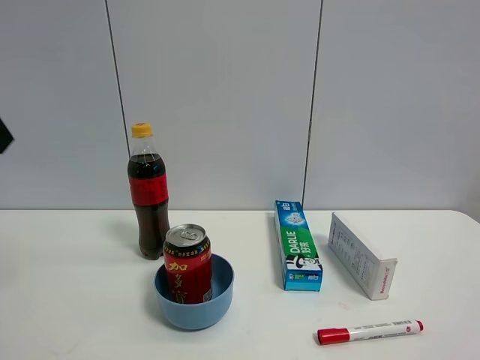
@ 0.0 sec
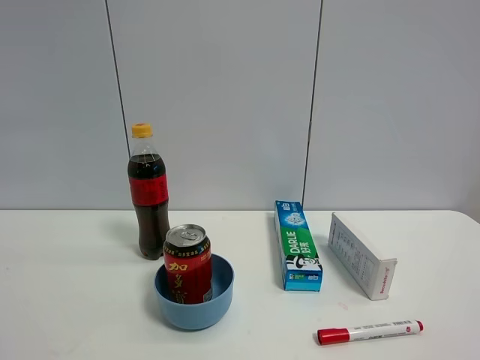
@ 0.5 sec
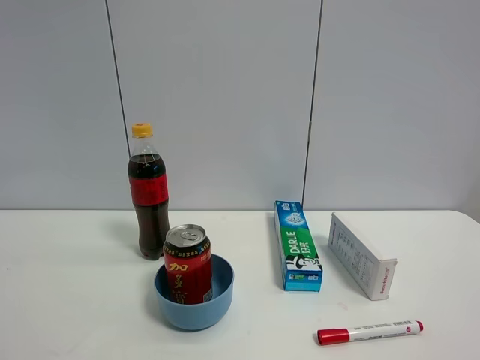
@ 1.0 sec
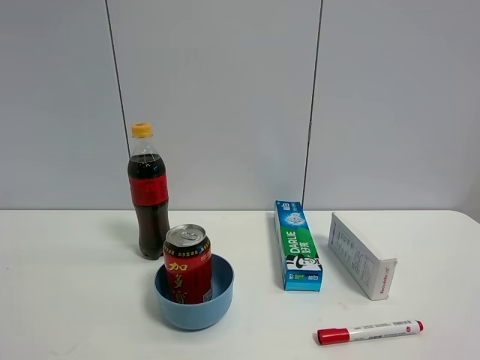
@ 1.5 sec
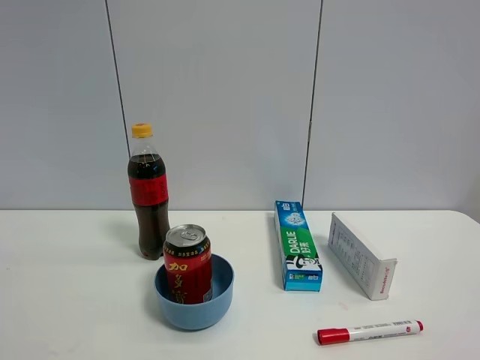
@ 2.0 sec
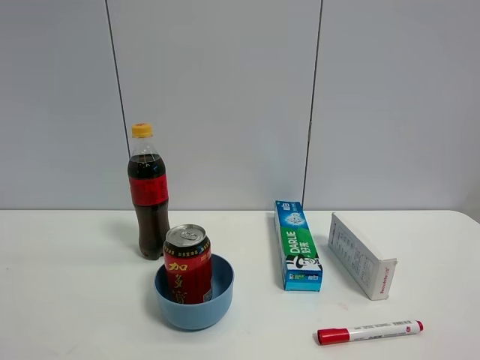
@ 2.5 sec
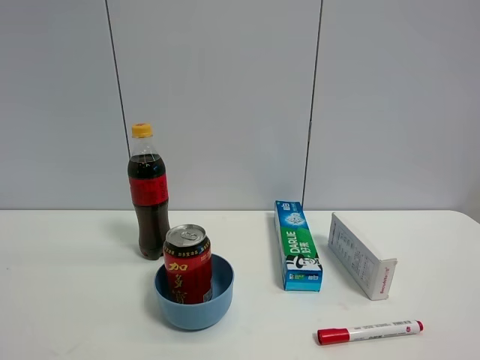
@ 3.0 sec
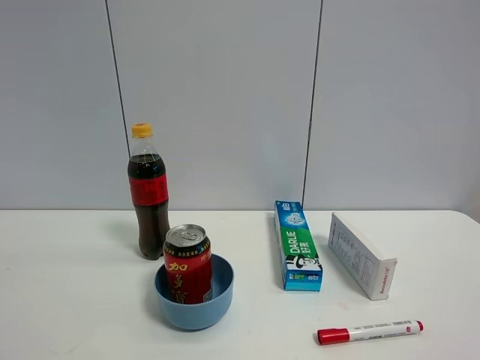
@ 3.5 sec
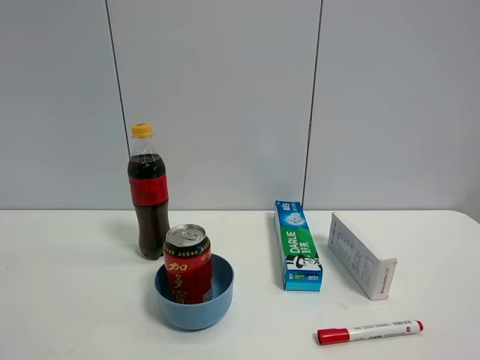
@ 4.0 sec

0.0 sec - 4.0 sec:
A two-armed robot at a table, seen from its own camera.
Task of the whole recording: the gripper move the object.
2.0 sec - 4.0 sec: Neither gripper changes place.
